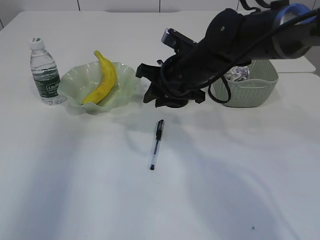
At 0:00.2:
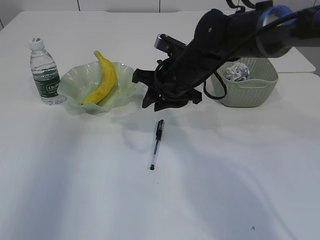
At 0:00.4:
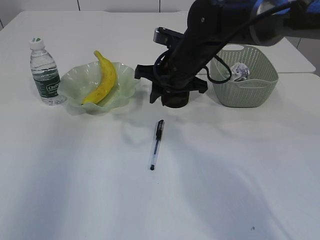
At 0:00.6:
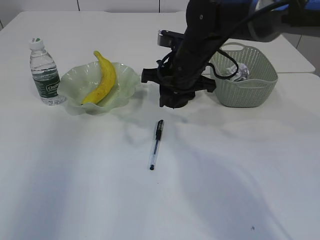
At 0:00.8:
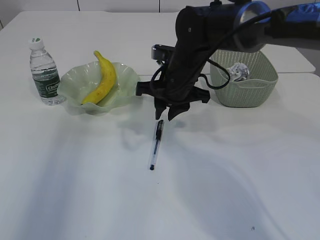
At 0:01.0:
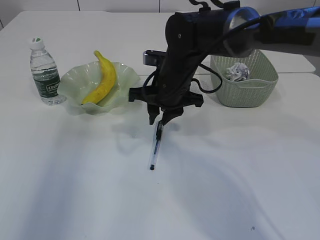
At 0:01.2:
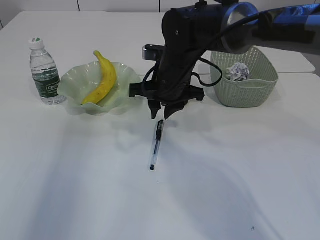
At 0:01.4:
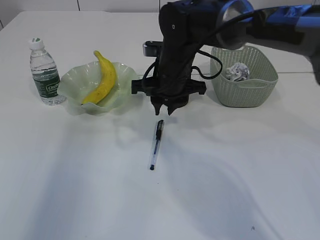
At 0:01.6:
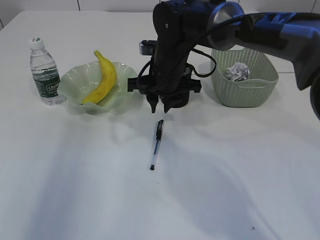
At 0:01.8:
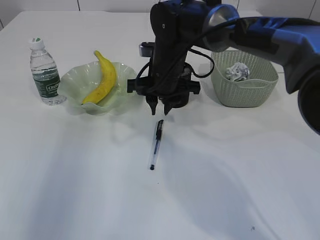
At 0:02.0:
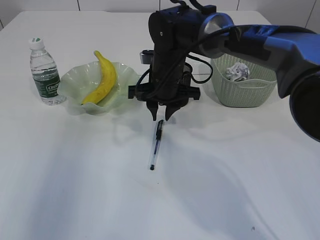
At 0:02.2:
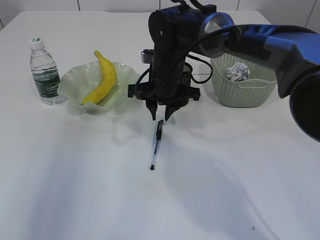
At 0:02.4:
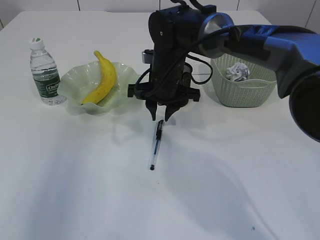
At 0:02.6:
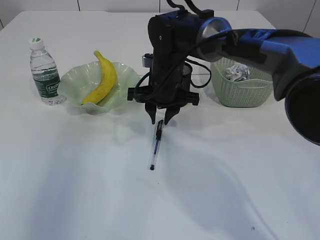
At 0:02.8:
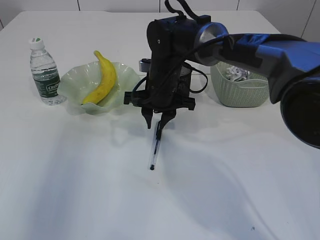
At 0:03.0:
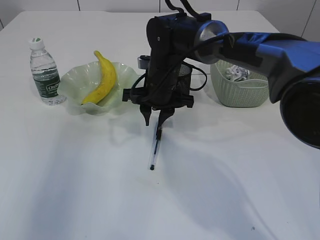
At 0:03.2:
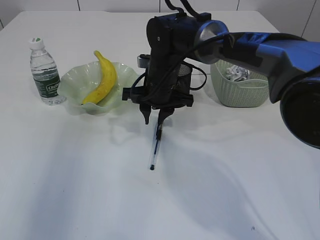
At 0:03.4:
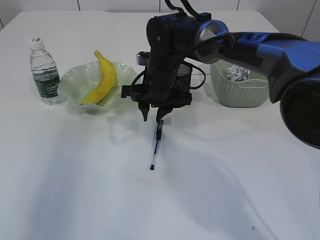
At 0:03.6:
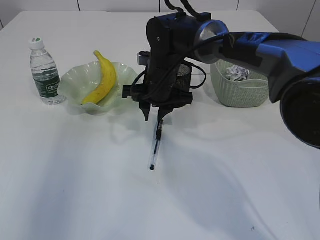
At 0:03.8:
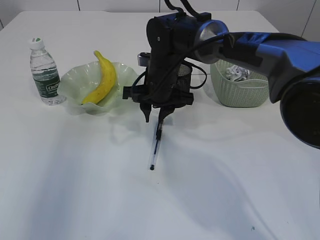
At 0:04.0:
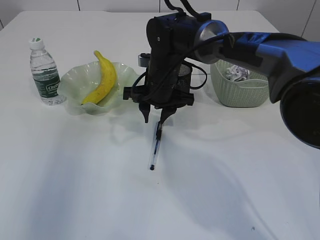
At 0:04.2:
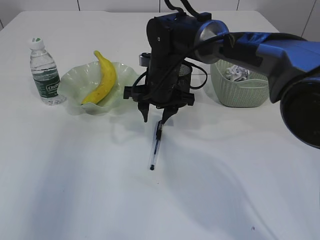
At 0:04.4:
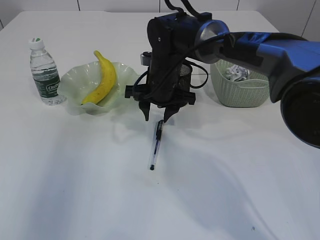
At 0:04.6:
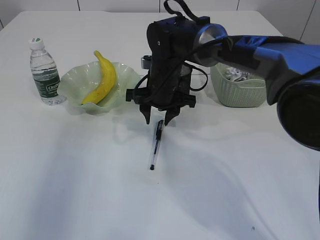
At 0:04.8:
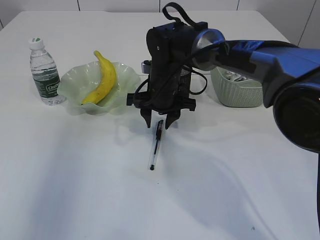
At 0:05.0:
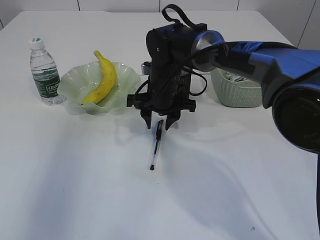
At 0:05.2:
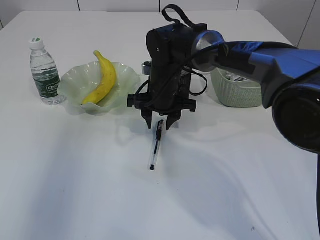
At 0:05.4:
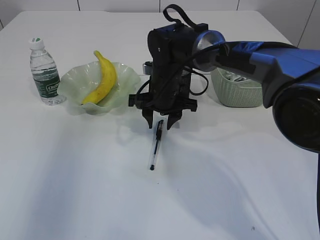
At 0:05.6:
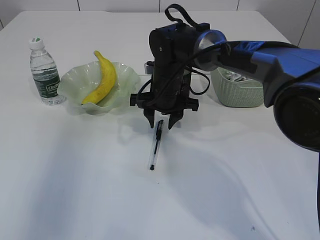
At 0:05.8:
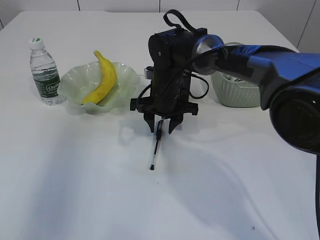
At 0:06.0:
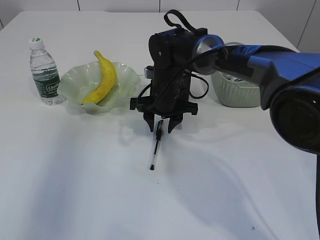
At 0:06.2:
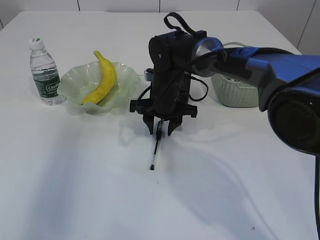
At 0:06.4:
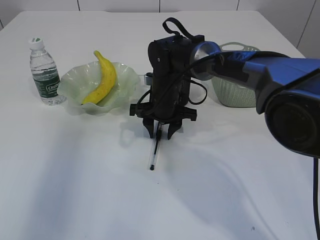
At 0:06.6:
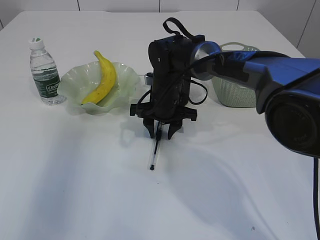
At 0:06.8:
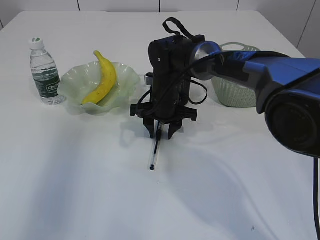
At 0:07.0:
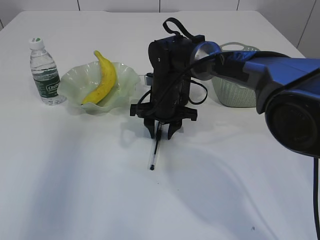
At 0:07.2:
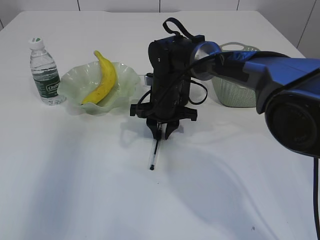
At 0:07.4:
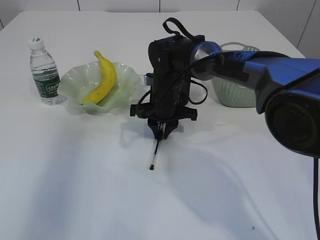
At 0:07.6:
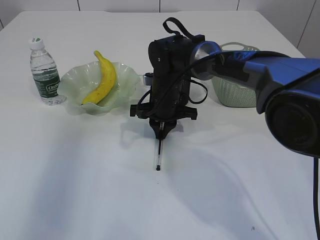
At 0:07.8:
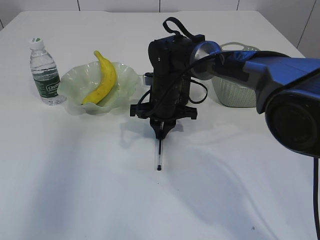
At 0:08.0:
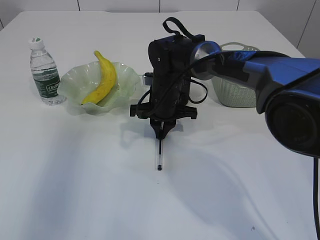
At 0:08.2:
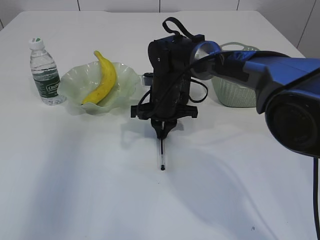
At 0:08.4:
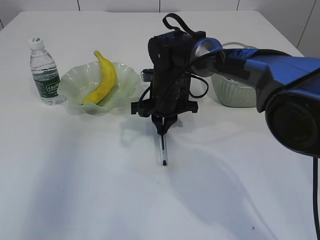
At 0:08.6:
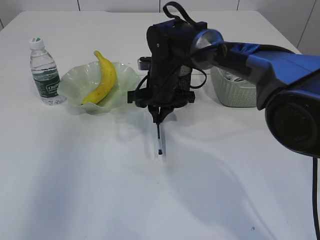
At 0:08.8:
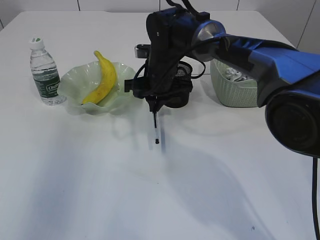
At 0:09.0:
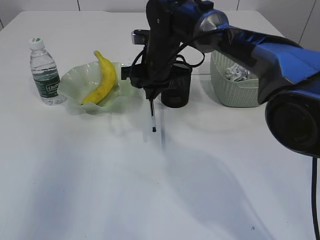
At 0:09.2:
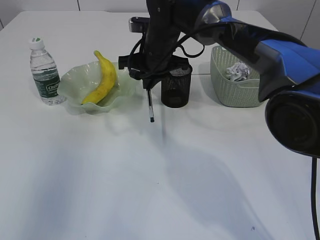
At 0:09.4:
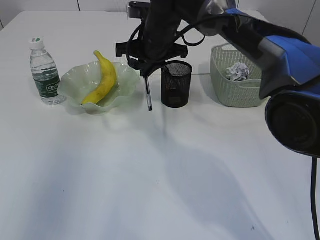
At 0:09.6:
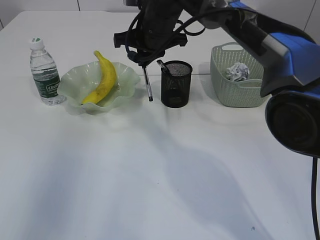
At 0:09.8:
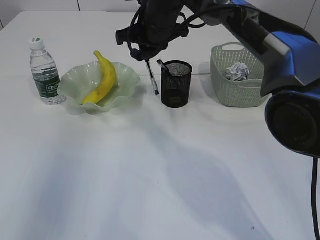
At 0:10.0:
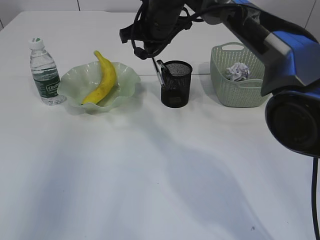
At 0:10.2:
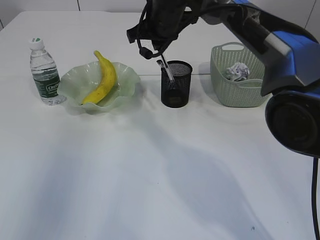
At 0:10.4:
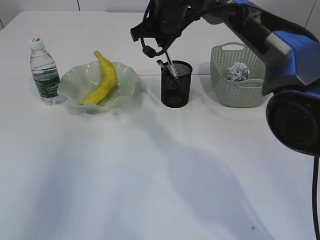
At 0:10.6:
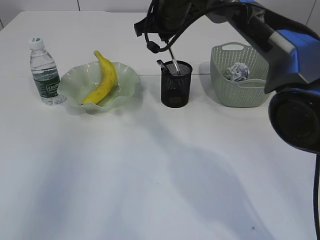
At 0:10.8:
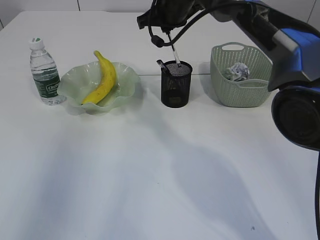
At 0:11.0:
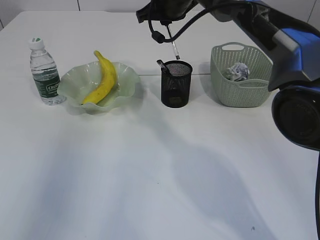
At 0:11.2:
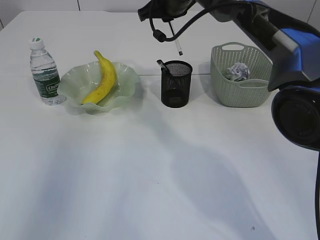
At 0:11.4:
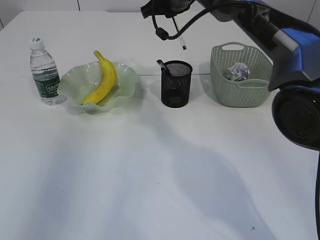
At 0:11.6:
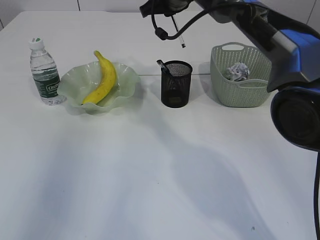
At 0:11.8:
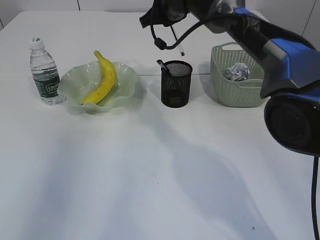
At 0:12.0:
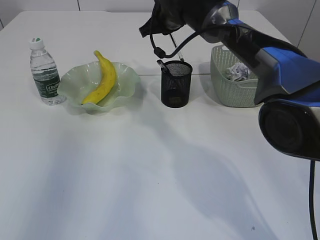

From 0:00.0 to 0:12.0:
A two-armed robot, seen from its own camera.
Step, from 0:00.0 to 0:08.8: Pick up the pen with right arm.
From 0:01.6 to 0:03.0: The grippers move only a little.
From 0:03.0 to 0:04.4: Both grippers stay put.
From 0:04.4 to 0:06.0: There are only small adjustments of the grippers.
From 0:06.0 to 0:07.6: The right gripper closes.
From 0:07.6 to 0:09.0: The right gripper goes some 5 cm upward.
From 0:09.0 to 0:10.4: The right gripper moves upward, approximately 10 cm.

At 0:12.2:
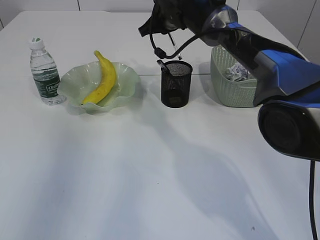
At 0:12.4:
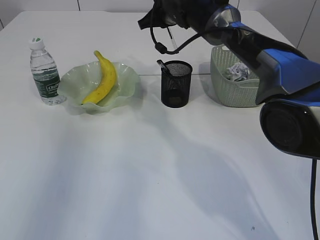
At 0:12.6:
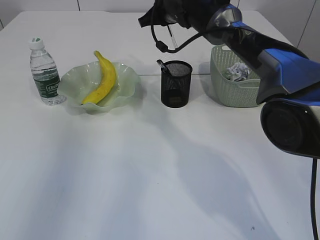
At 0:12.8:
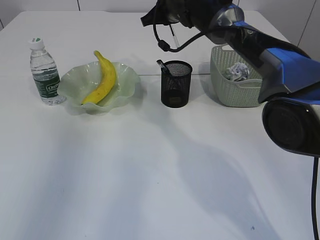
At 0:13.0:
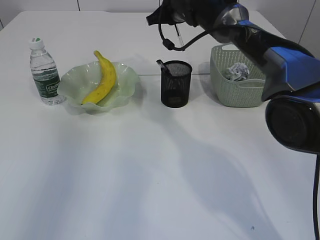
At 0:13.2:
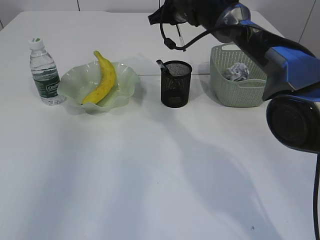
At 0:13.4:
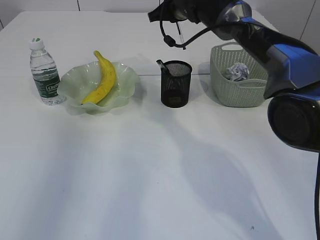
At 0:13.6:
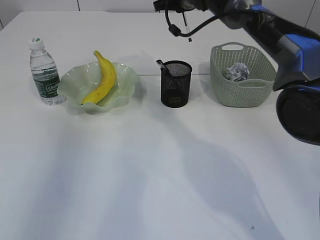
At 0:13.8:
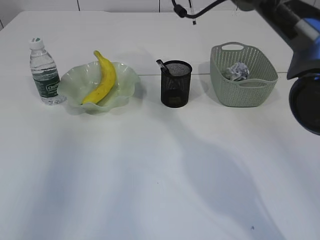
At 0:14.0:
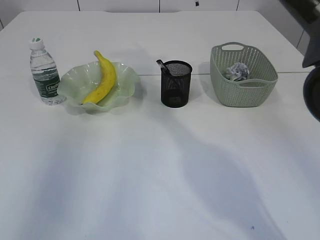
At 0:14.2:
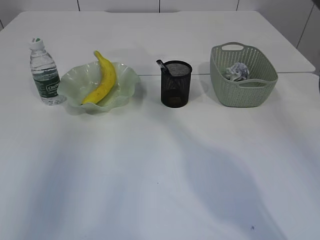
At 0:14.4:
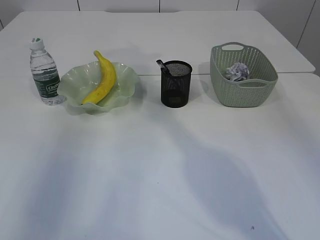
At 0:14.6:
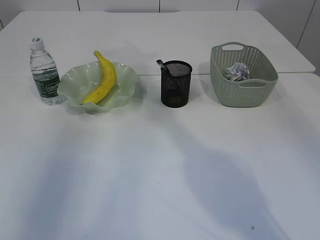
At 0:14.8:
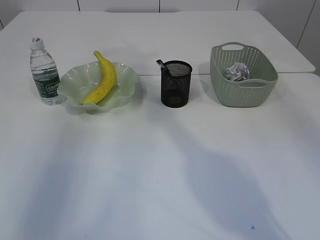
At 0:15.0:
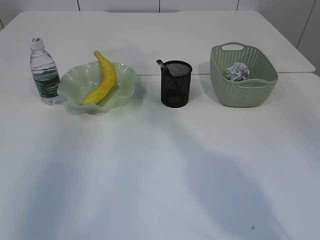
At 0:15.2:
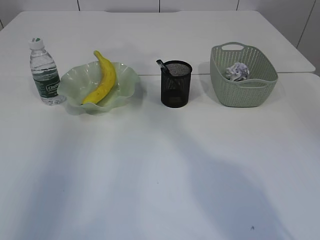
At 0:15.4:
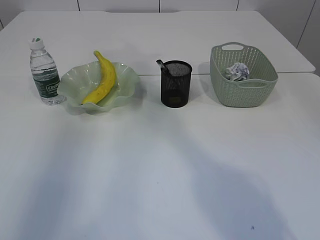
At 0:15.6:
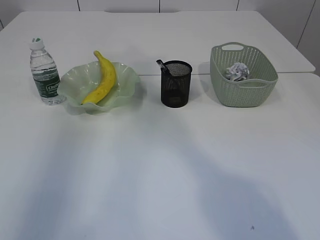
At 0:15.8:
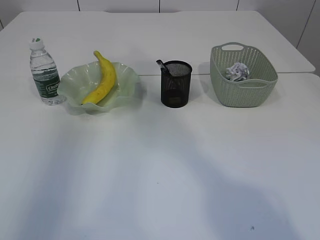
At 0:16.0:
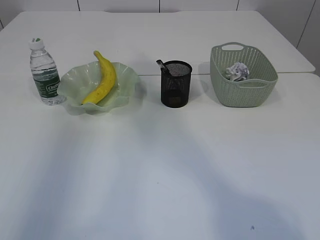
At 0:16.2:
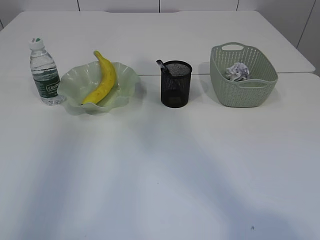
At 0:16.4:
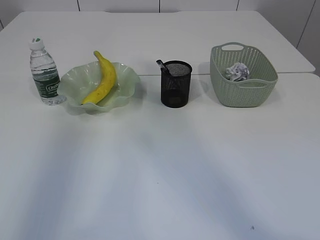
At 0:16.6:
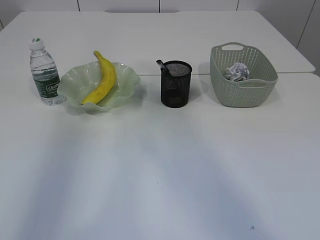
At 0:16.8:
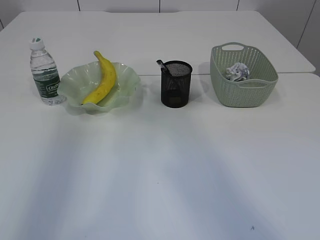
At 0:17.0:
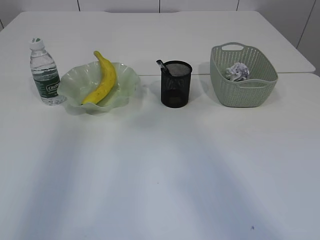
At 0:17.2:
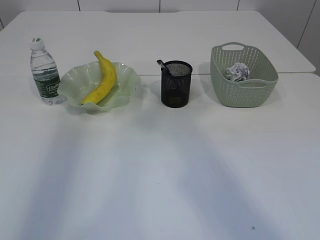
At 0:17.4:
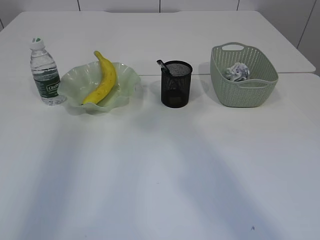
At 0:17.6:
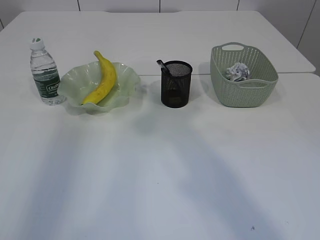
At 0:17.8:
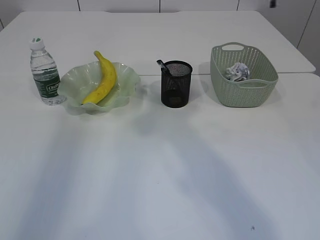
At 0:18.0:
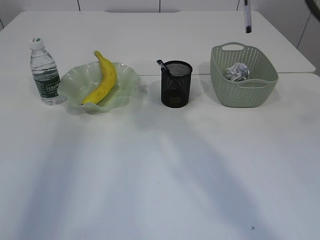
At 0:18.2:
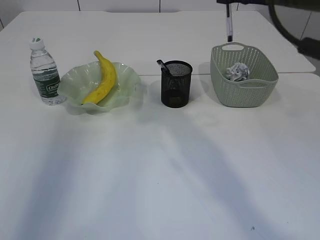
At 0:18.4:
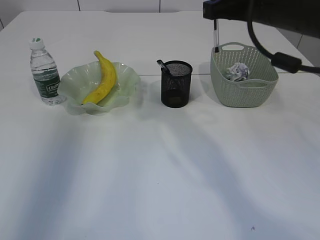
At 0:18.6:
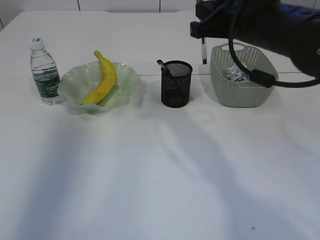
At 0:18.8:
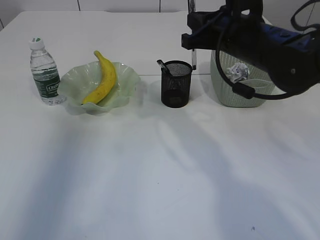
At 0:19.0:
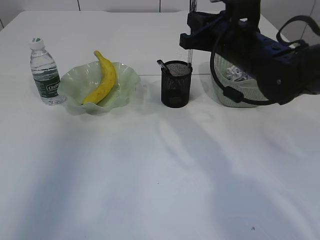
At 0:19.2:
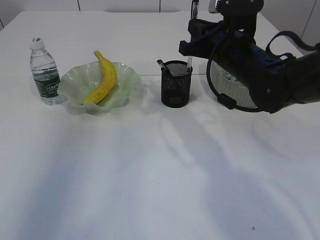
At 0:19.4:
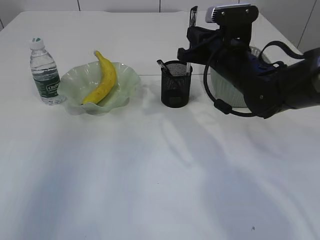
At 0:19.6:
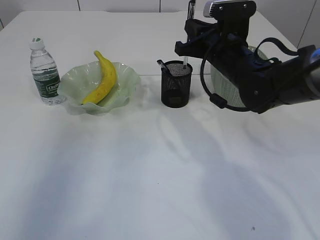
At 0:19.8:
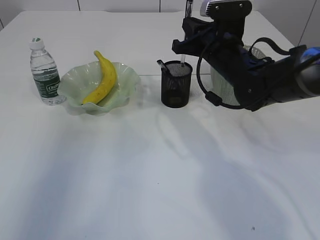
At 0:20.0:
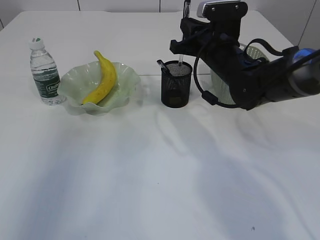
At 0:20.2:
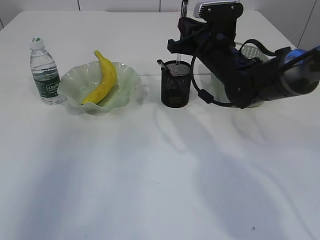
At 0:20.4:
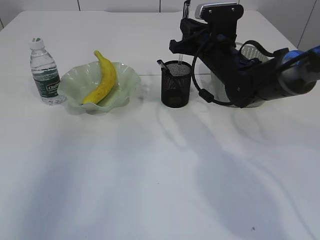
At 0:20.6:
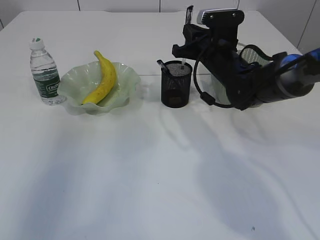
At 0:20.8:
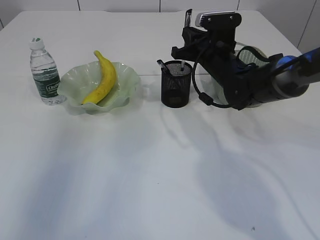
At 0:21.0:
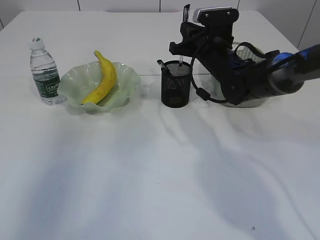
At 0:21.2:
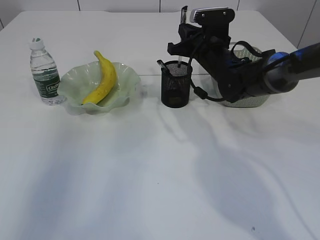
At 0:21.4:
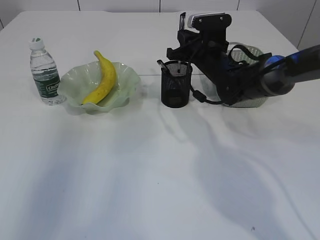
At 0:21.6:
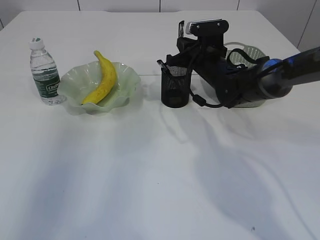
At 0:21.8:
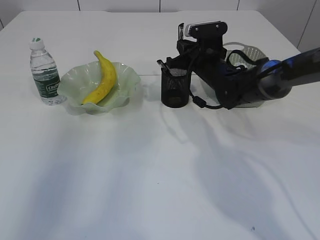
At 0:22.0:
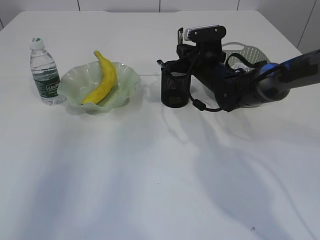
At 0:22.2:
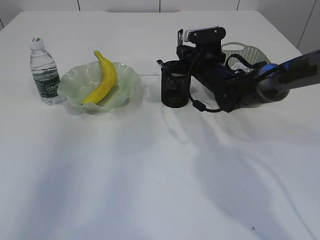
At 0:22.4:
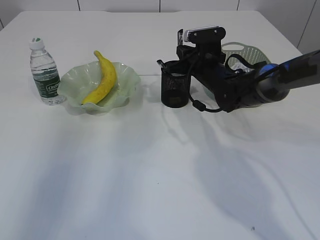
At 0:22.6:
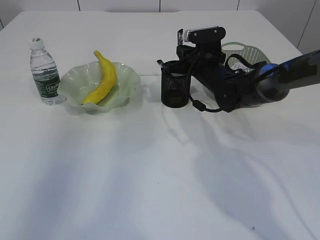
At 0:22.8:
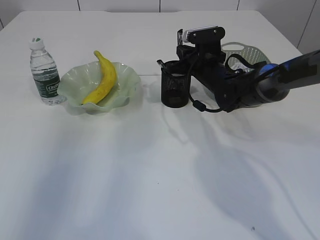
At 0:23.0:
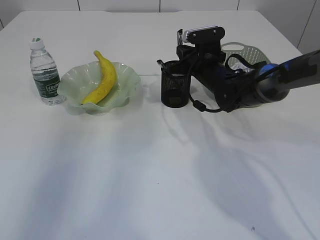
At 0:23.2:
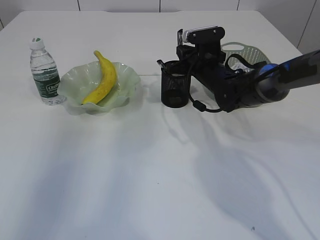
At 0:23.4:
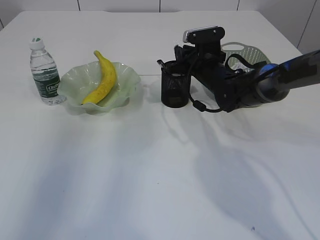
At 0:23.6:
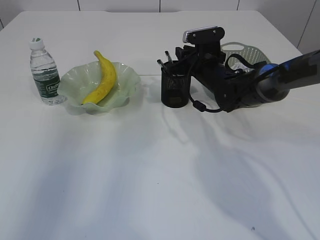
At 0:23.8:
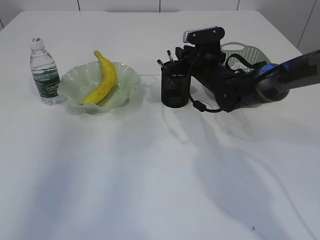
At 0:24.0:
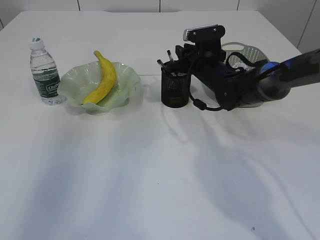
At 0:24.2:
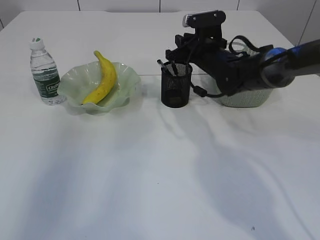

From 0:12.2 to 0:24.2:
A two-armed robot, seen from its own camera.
Step, from 0:12.2 to 0:23.4: Place the pen into the pen holder.
From 0:12.2 to 0:13.8: The right gripper is displaced upward by about 5 cm.
From 0:13.8 to 0:15.2: The right gripper moves upward and backward, about 20 cm.
From 0:16.6 to 0:18.2: The right gripper travels downward and forward by about 30 cm.
From 0:18.2 to 0:19.8: The right gripper shifts some 20 cm downward and forward.
From 0:19.8 to 0:21.2: The right gripper travels forward by about 5 cm.
From 0:21.2 to 0:24.2: There are only small adjustments of the grippers.
